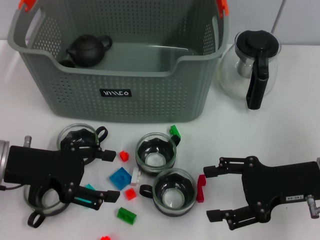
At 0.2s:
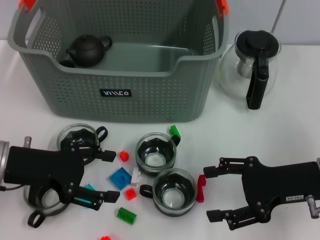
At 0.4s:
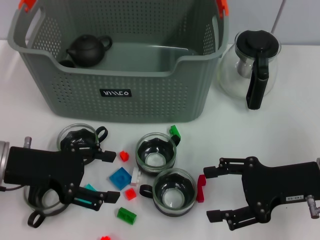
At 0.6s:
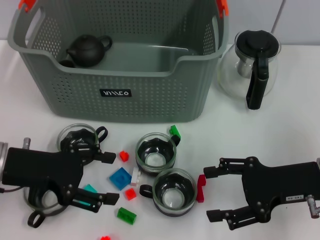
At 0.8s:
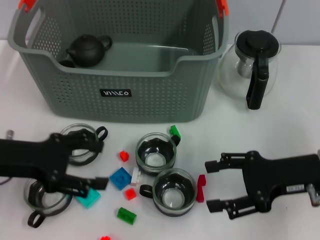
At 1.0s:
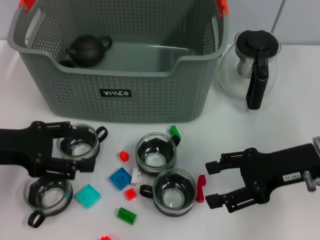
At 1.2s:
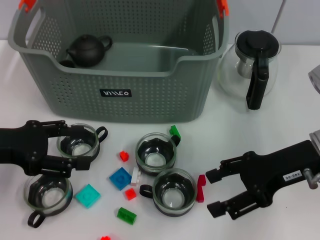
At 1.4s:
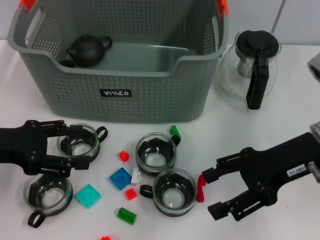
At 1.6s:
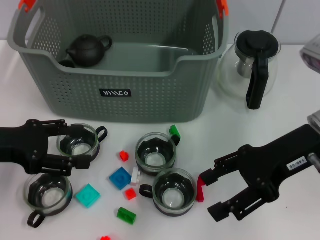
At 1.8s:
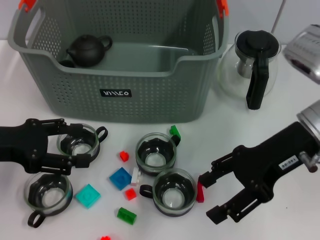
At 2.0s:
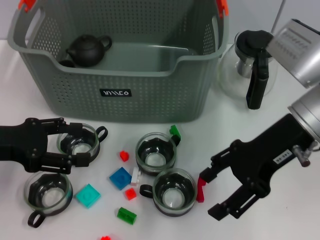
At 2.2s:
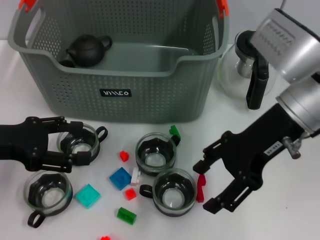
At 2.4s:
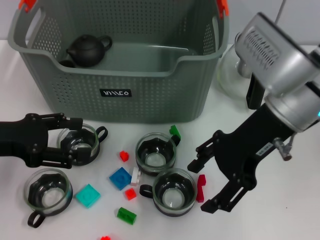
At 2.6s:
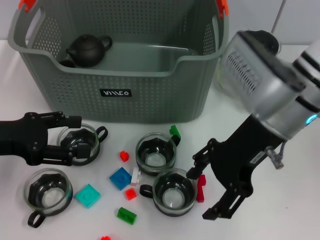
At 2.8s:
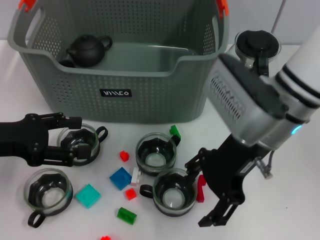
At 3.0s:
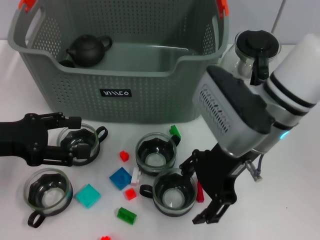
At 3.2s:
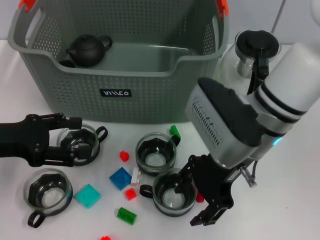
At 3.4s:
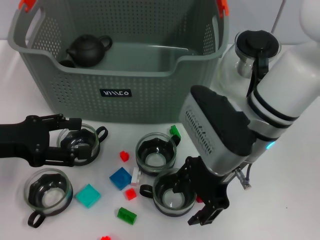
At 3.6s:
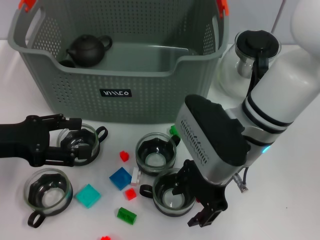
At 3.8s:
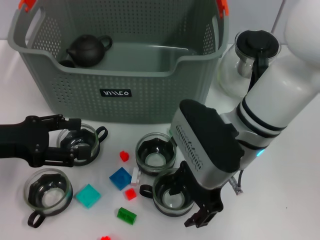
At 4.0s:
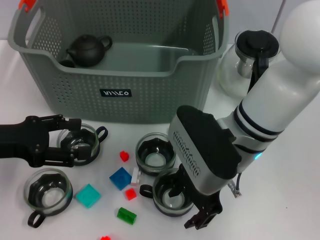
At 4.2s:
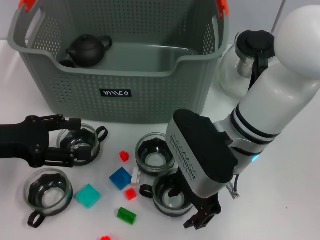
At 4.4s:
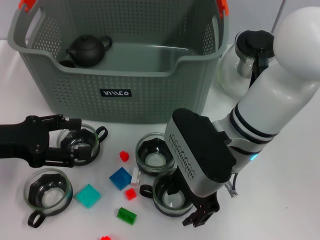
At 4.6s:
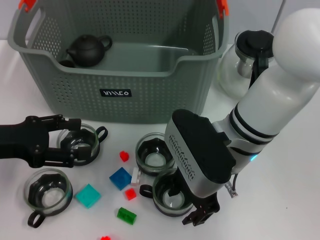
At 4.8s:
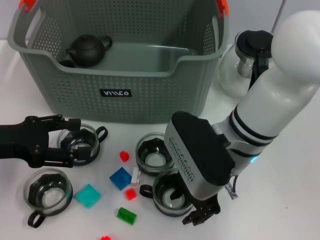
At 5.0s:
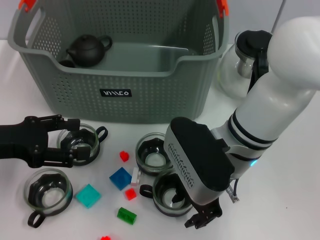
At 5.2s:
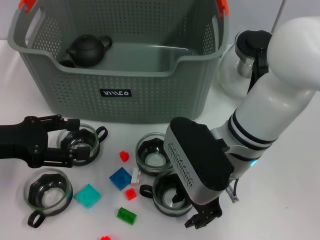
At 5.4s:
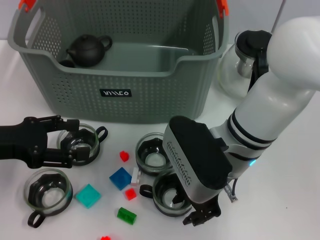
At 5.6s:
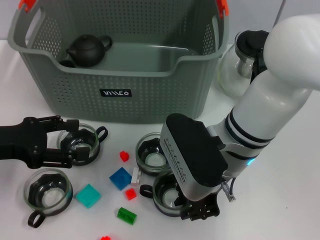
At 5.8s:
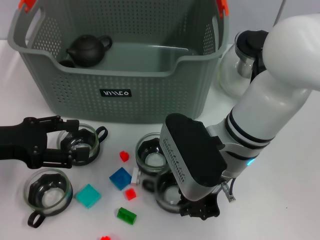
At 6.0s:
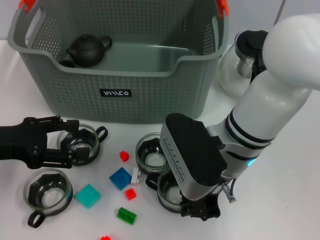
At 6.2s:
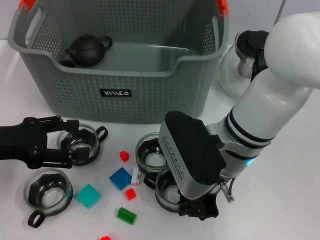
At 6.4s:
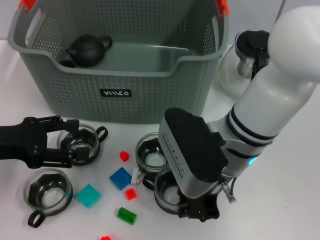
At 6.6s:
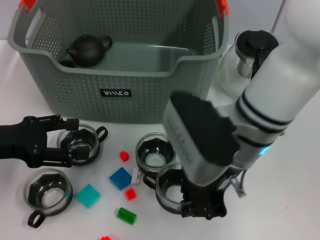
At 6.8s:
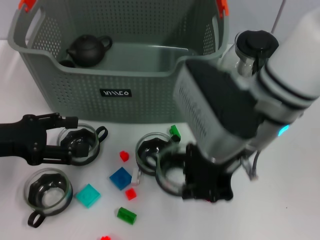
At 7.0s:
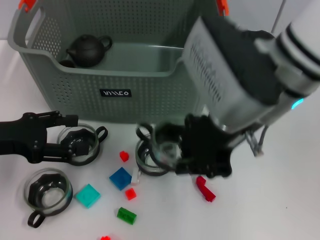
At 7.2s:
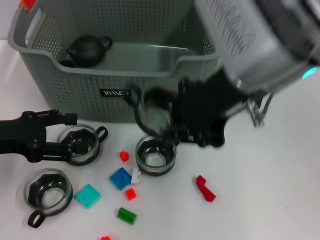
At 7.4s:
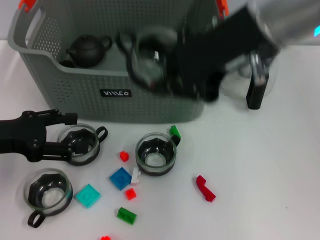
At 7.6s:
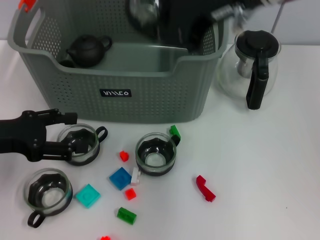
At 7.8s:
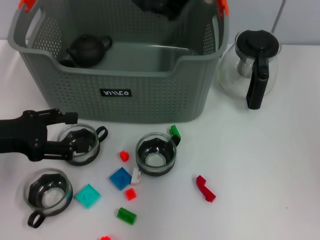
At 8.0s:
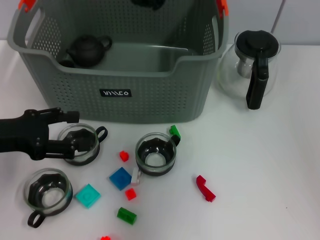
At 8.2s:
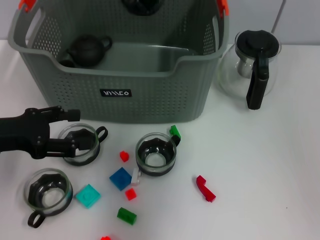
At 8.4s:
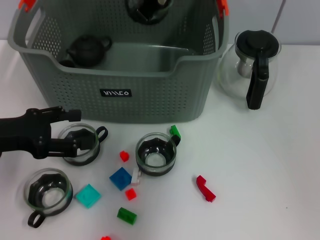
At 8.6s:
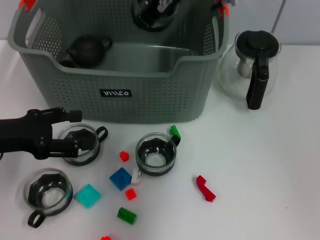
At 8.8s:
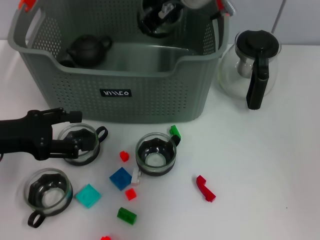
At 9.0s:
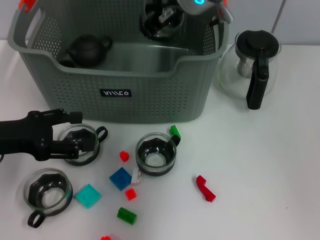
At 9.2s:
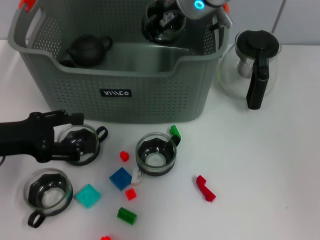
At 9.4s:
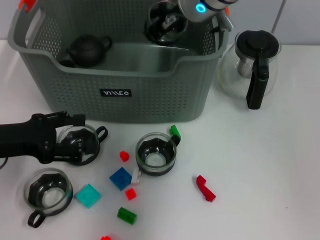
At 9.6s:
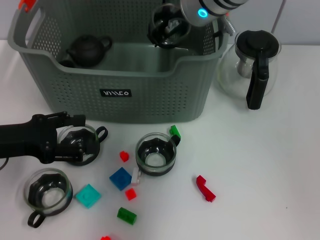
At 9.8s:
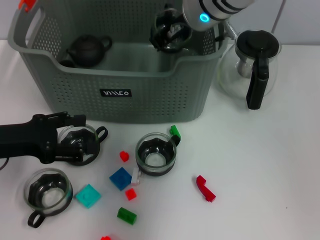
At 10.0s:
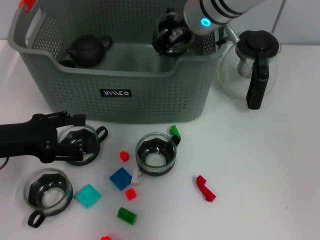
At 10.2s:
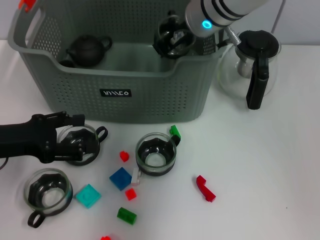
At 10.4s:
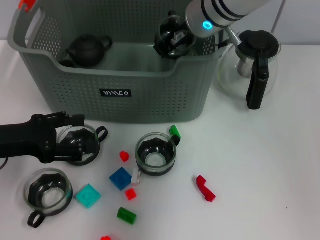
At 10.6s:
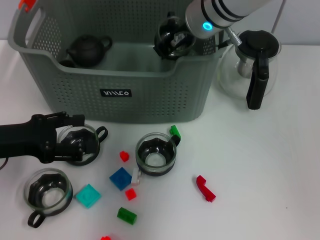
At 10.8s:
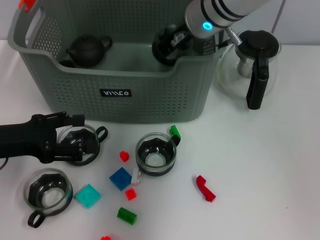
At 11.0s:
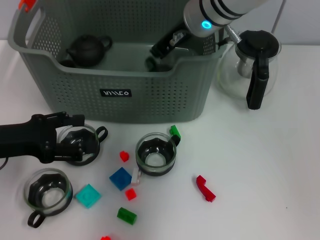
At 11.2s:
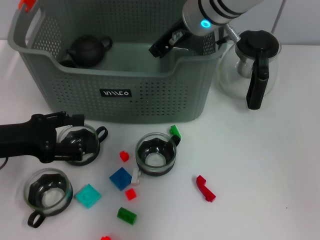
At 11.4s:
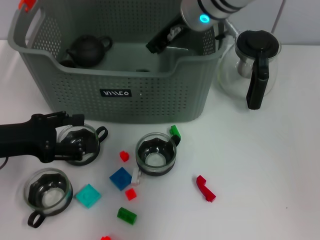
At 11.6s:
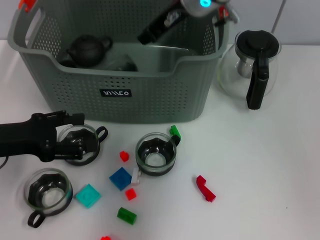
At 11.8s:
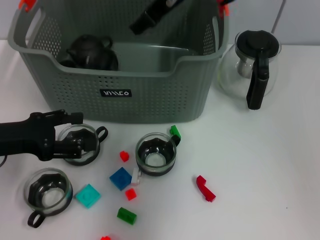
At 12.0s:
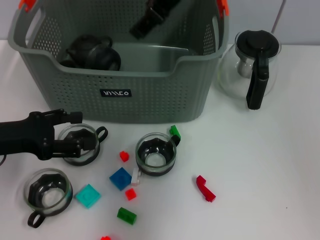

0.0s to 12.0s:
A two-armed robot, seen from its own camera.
Task of the whole recording: pick up the teacup on the table and place it into the storage bin, pick up the block on the table and place it into the storage bin.
Step, 0.0s to 5.6s: Grasp the cup with right gripper.
Step, 6.0s to 11.6s: Place the cup in the storage box with right gripper.
0.0s to 1.6s: The left gripper moves roughly 5 cm; the right gripper travels upward by roughly 10 cm.
1.6s to 3.0s: The right gripper moves to the left, about 10 cm.
3.0s to 4.4s: The grippers move only a little.
4.4s to 6.0s: The right gripper closes its fingers.
6.0s to 7.6s: The right gripper goes approximately 20 cm upward.
7.6s to 9.0s: The right gripper shifts some 15 cm forward, downward and to the left.
9.0s to 10.4s: There are only small adjustments of the grippers.
10.4s to 12.0s: The right gripper goes some 10 cm upward, and opens up.

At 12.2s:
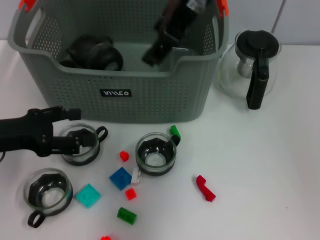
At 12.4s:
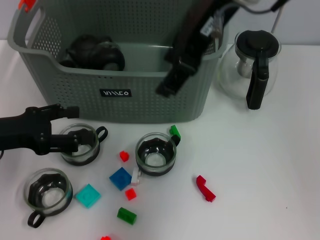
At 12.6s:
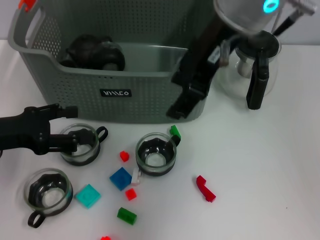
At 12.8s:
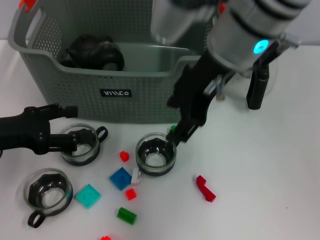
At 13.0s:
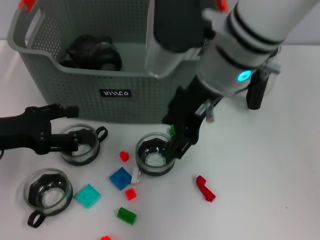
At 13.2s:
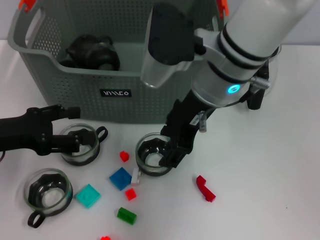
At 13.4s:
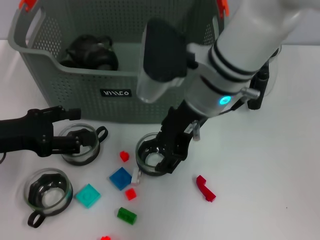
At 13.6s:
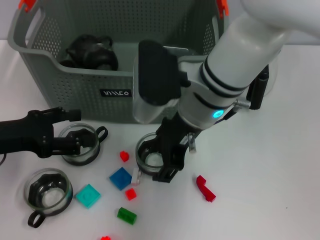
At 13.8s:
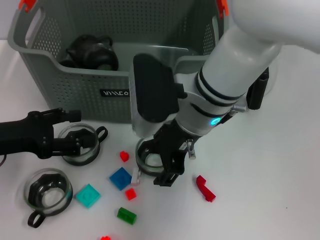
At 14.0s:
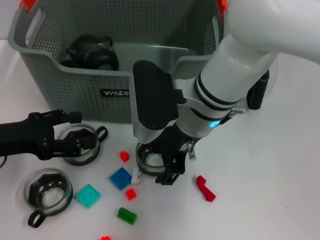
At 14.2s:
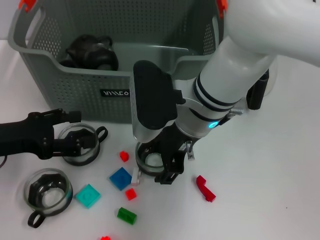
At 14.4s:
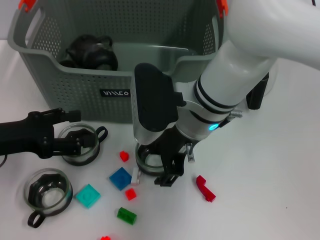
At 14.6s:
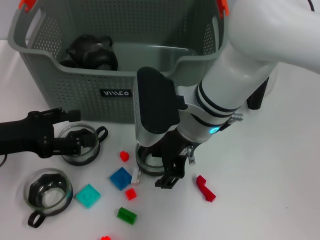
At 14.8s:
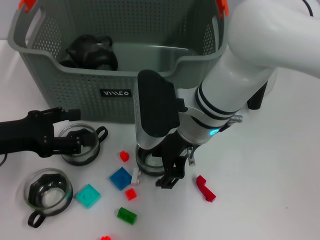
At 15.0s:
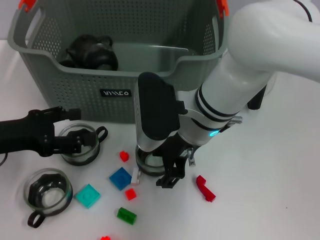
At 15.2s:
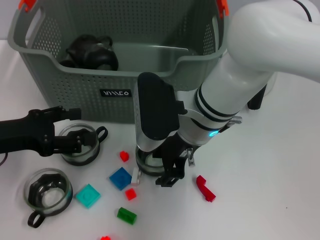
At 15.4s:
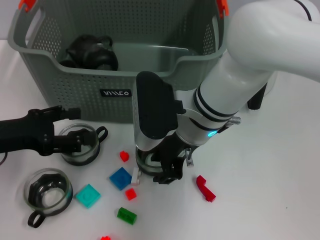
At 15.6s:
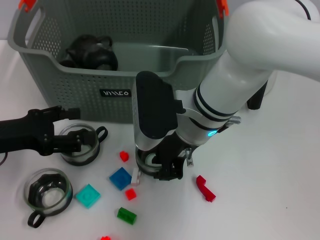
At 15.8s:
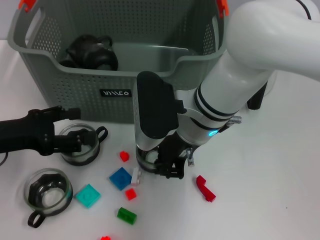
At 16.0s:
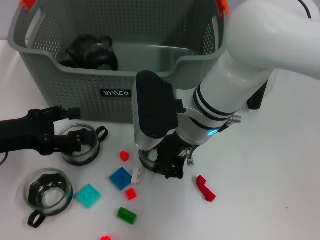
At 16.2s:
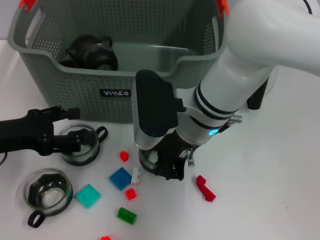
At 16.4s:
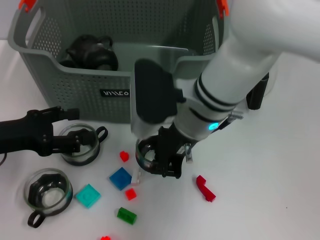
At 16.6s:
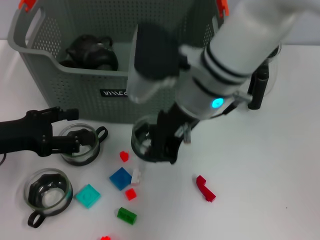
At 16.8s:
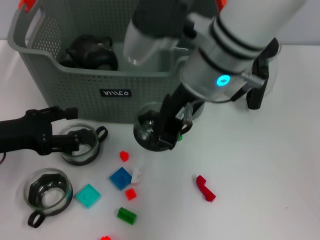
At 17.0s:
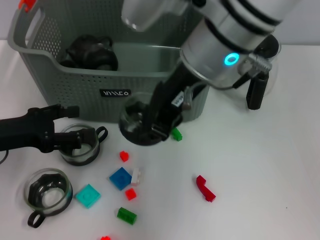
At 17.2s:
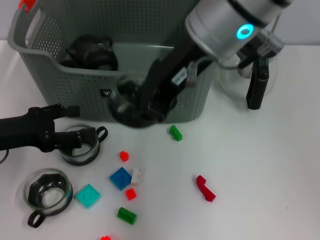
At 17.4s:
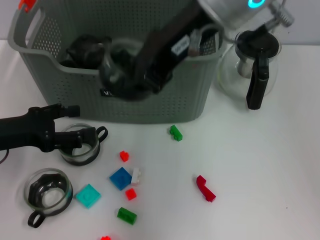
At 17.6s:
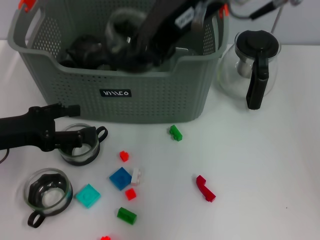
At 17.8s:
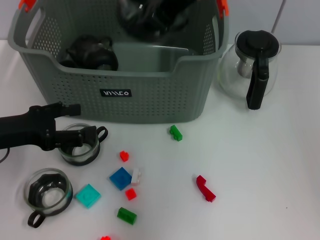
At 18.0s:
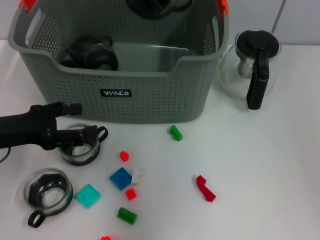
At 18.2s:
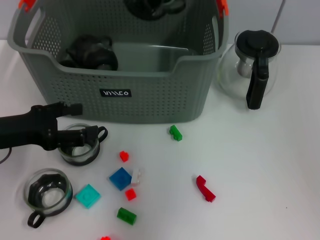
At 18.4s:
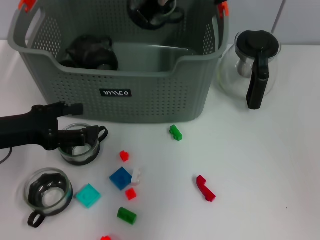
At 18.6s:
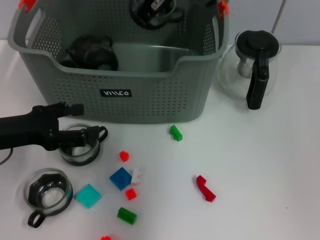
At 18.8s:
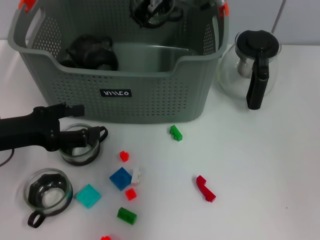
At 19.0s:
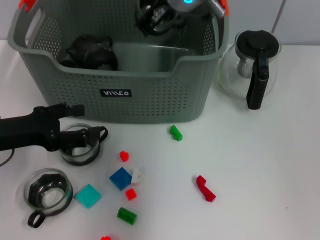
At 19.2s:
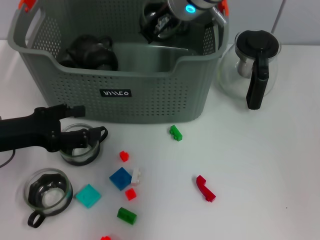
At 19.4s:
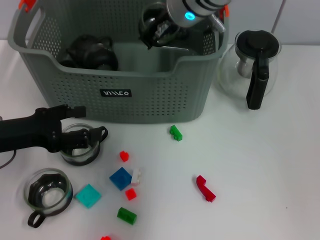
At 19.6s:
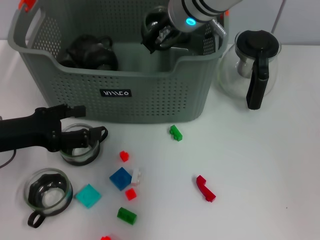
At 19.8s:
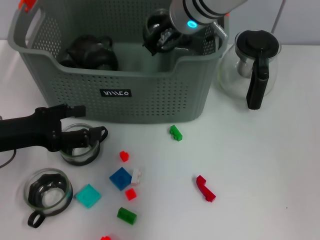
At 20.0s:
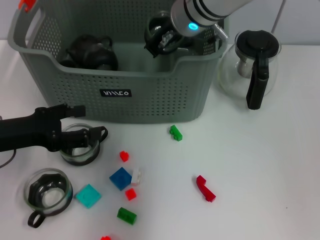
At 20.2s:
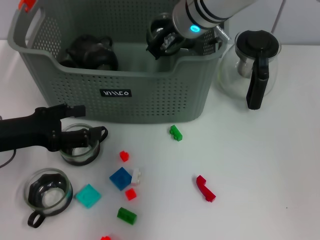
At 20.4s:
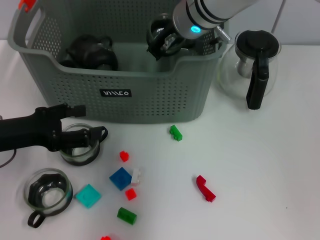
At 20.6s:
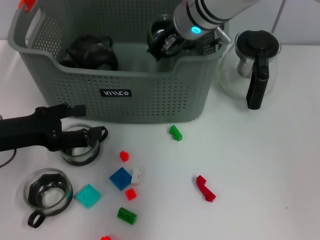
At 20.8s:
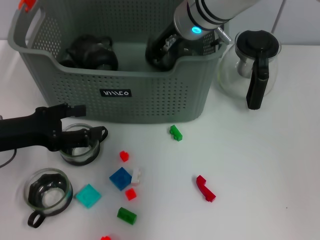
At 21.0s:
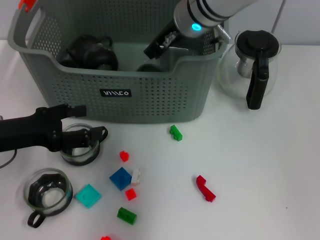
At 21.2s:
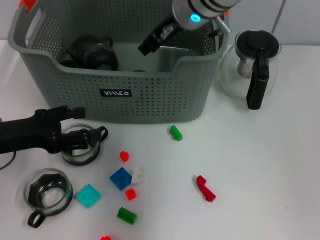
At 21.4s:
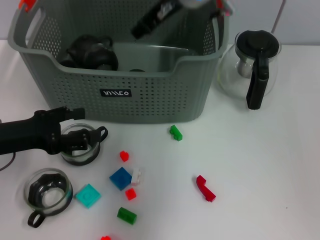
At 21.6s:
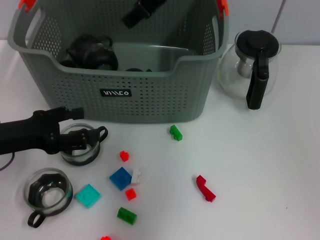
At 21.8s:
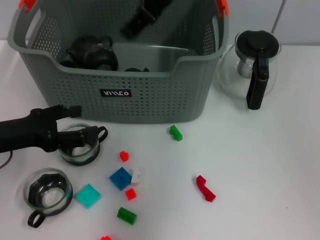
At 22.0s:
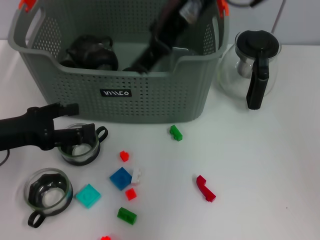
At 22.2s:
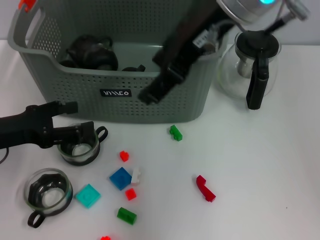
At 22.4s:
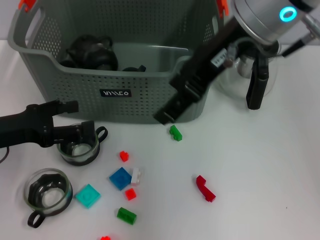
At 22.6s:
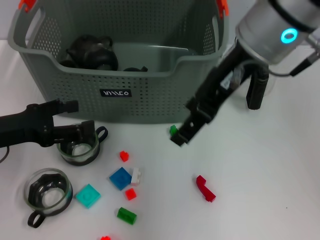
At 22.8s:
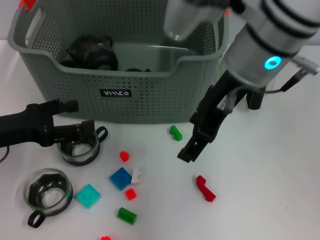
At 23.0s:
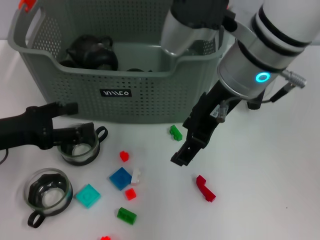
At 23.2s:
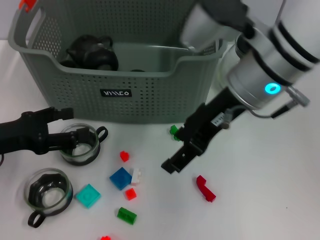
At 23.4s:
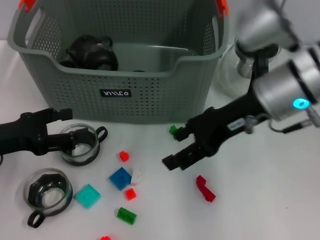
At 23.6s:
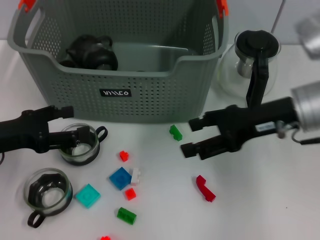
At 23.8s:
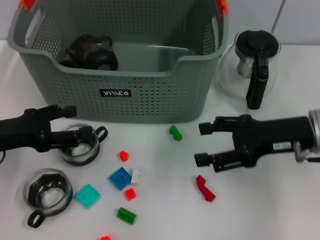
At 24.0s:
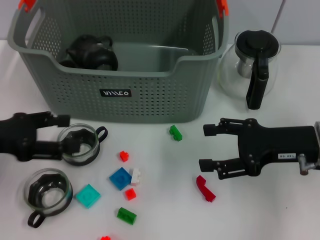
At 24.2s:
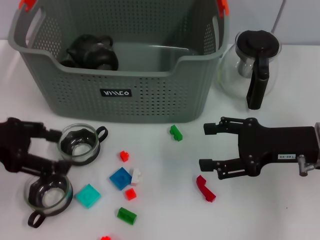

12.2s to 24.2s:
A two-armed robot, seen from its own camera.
Task of the whole recording: pick up the teacup on the table and place it into the storage bin, pick up the block on the table and place it into the storage bin.
Step, 12.2s to 15.6s: Grasp the cup with right gripper.
Step, 16.0s to 21.6s: Place the cup in the storage box with right gripper.
12.2s to 13.8s: The right gripper travels downward by approximately 20 cm.
13.8s to 15.2s: The grippers move only a little.
15.2s to 16.6s: The right gripper shifts roughly 5 cm upward, and closes.
16.6s to 18.2s: The right gripper travels upward and forward by roughly 15 cm.
18.2s to 19.8s: The right gripper moves downward, approximately 10 cm.
19.8s to 21.2s: The right gripper opens.
21.2s to 22.6s: The right gripper shifts roughly 15 cm backward, upward and to the right, and opens.
22.6s to 24.2s: The right gripper shifts some 25 cm downward and to the right. The left gripper heads upward, covering some 5 cm.
